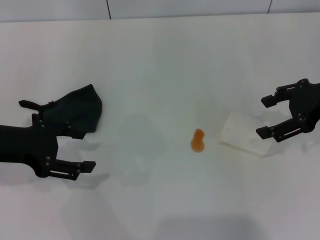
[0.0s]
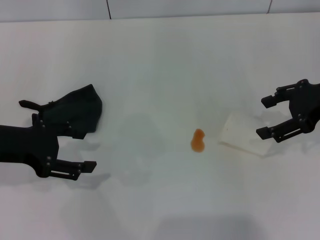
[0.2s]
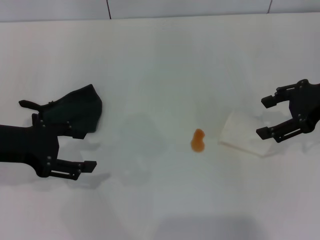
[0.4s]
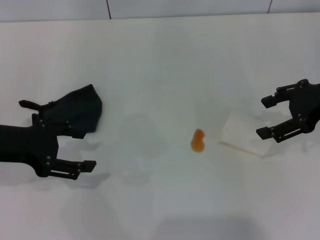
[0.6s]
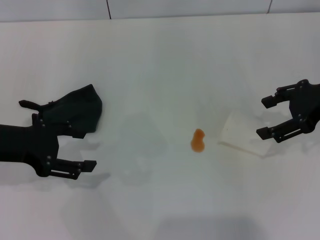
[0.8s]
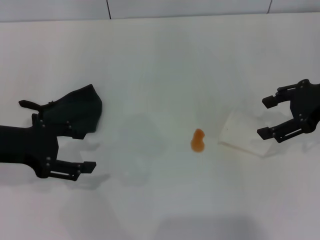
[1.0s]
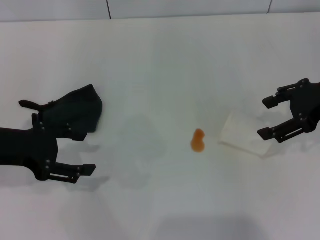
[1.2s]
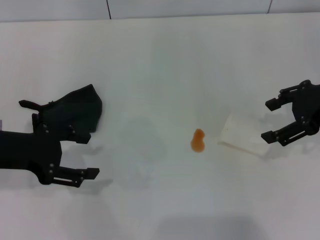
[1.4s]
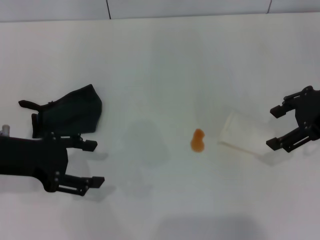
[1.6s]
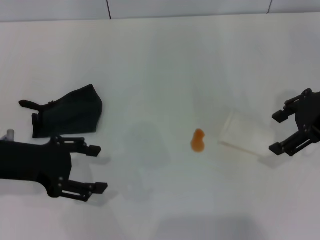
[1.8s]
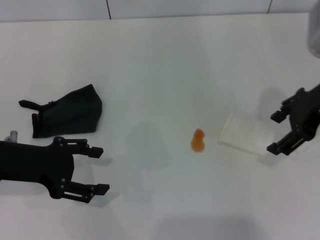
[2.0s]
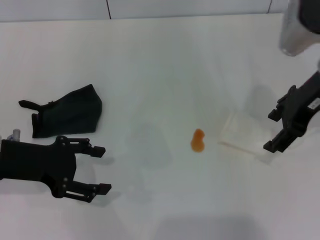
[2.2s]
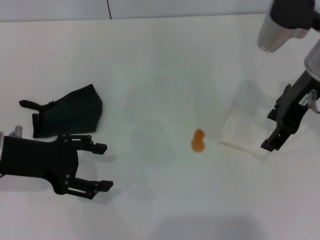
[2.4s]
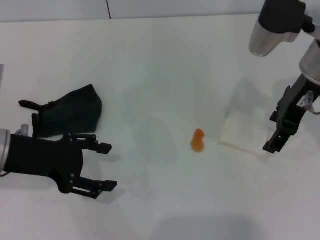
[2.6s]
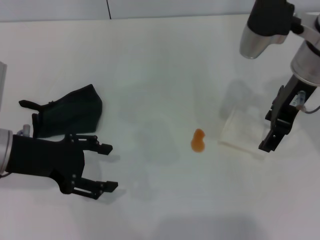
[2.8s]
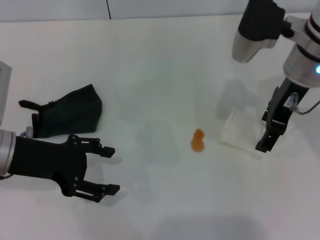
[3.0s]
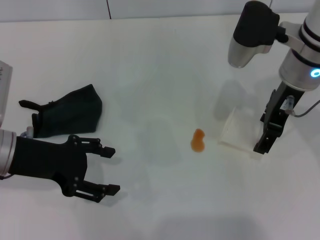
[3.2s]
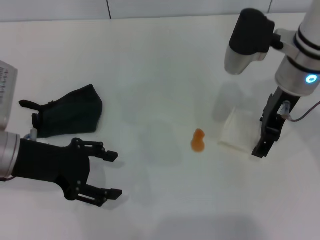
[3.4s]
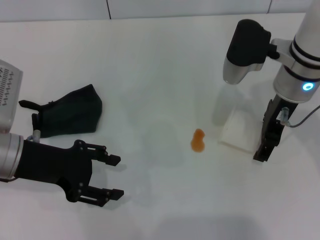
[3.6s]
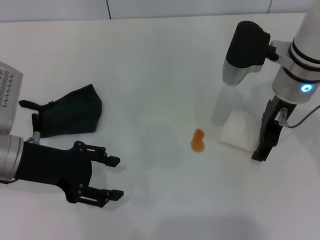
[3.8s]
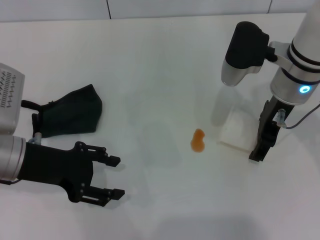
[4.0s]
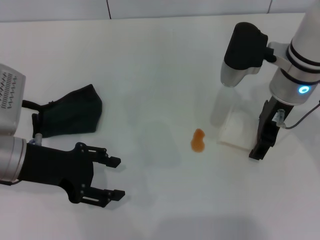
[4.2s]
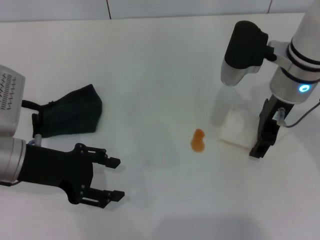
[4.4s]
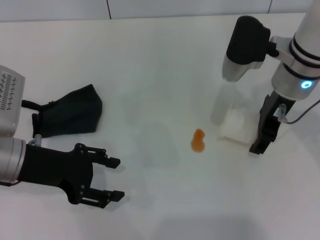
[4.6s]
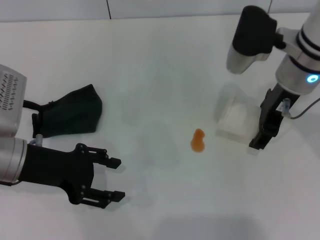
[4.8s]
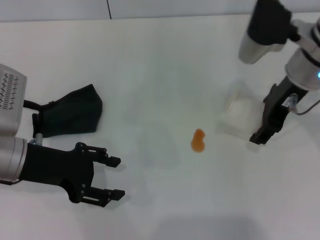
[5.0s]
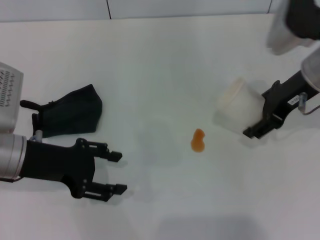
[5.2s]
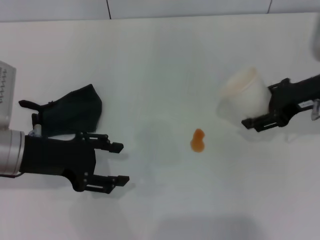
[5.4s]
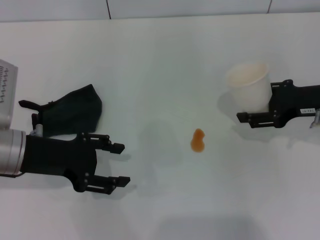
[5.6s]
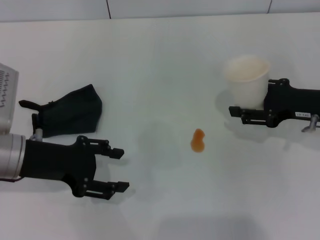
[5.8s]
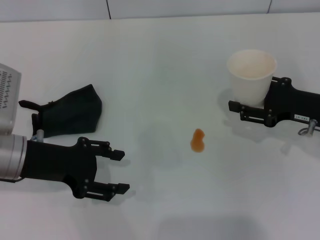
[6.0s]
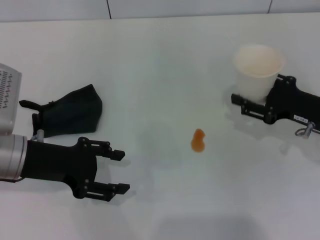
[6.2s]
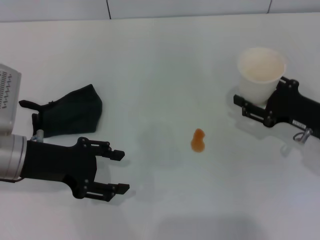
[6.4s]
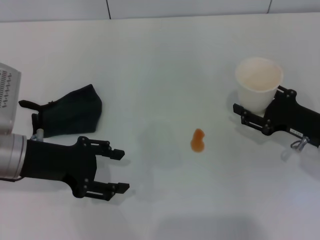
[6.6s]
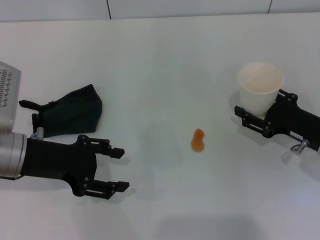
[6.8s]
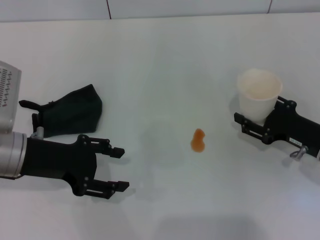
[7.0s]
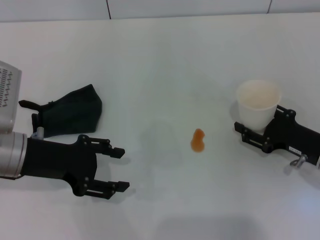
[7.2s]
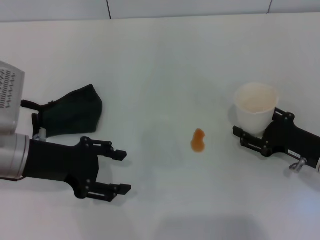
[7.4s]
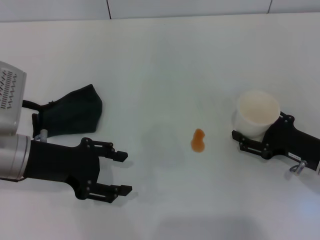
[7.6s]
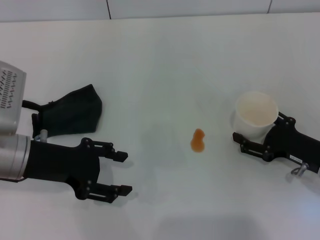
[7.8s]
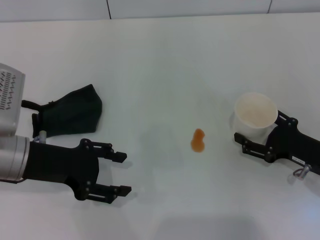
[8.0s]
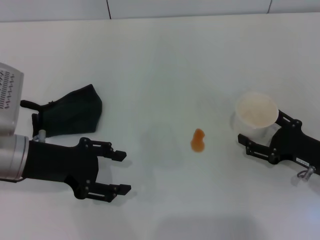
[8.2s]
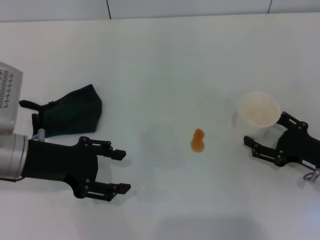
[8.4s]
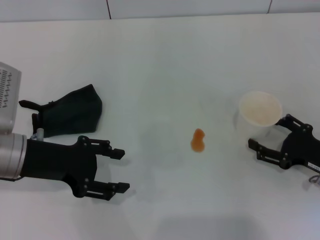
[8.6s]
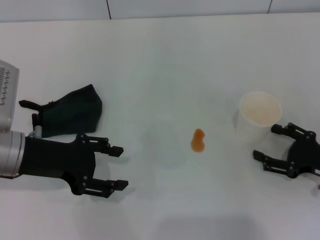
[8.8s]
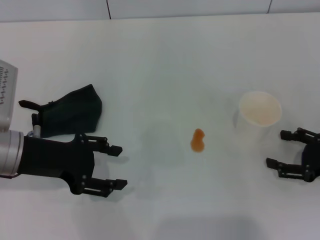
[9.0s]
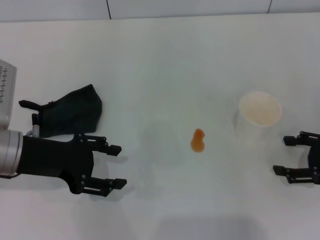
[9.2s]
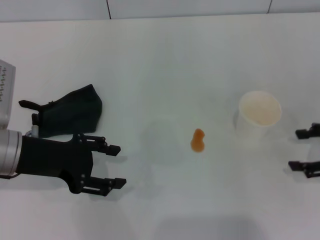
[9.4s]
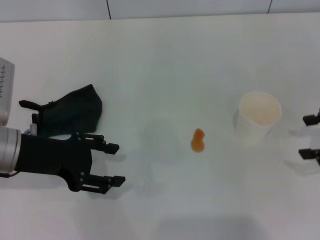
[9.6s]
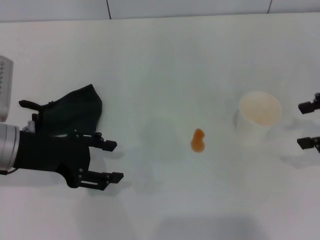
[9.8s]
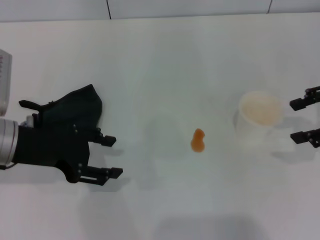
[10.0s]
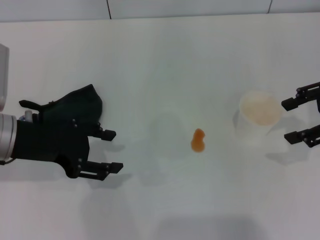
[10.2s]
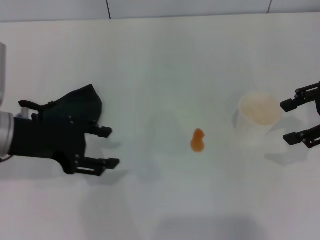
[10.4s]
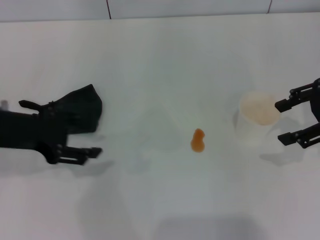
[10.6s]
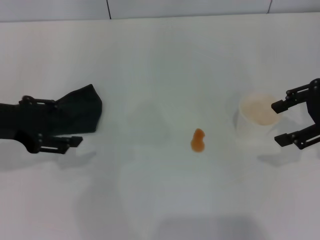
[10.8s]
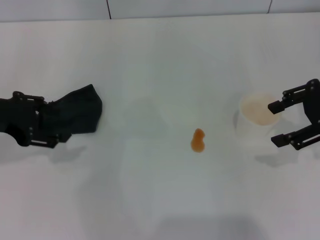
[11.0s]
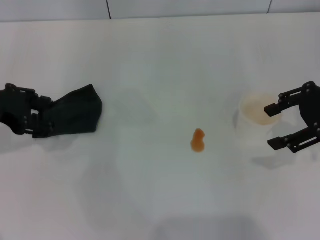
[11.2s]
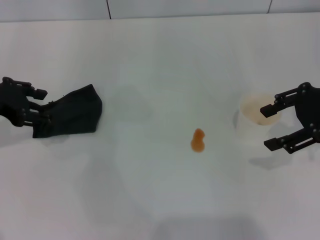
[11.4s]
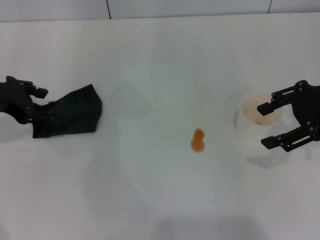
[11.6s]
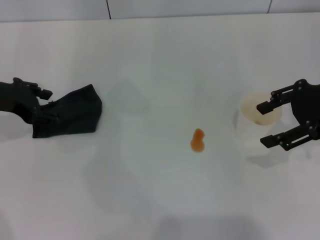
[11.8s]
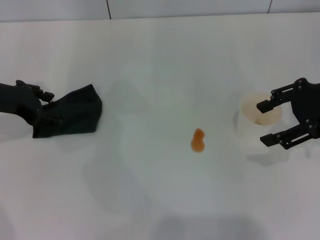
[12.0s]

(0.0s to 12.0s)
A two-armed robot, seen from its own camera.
Step, 0.0s - 4.4s: Grasp the paper cup with the right gripper.
Step, 4.6s - 8.8s: Stand the paper cup upright with the right gripper.
0.0s - 1.6s: There are only small adjustments of the grippers.
1.6s - 3.0s: The right gripper shifts approximately 10 cm to the left.
3.0s - 4.4s: The grippers make only small movements.
4.4s - 6.0s: The right gripper heads to the right, downward and backward, covering some 15 cm.
6.0s - 7.6s: The right gripper moves downward, about 5 cm, and opens its fingers.
7.6s - 9.0s: The right gripper goes some 5 cm to the right.
9.0s - 10.4s: The right gripper heads upward and forward, covering roughly 20 cm, and closes up.
10.4s - 12.0s: The left gripper goes about 10 cm forward and to the left.

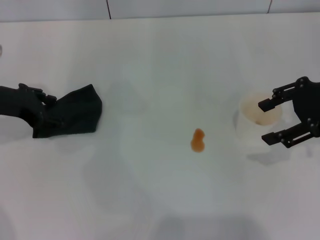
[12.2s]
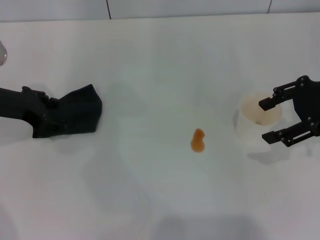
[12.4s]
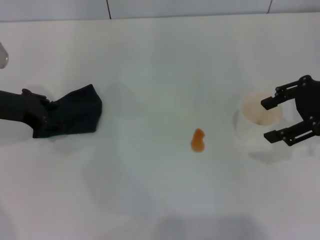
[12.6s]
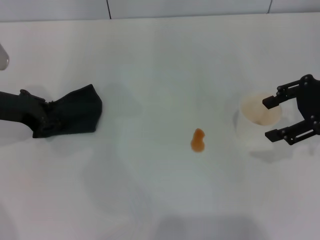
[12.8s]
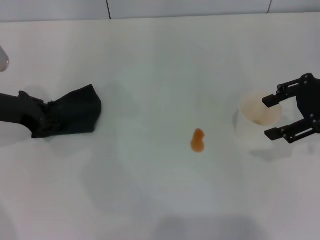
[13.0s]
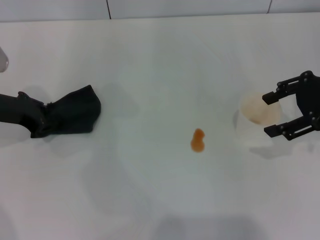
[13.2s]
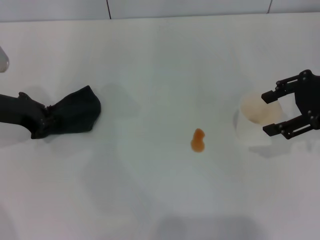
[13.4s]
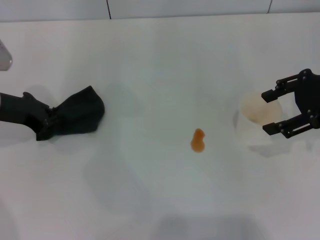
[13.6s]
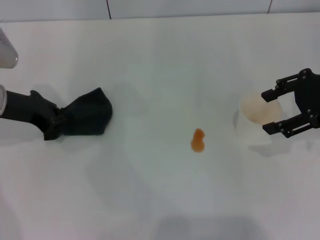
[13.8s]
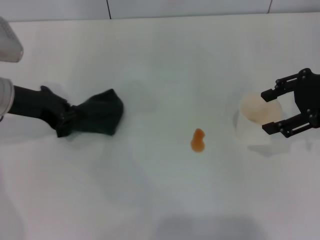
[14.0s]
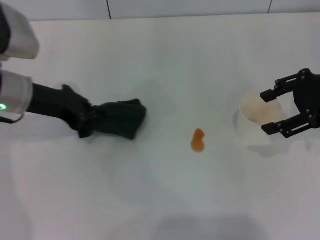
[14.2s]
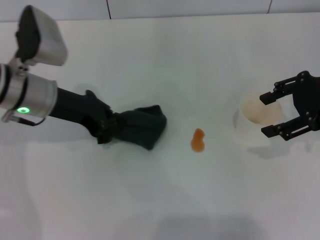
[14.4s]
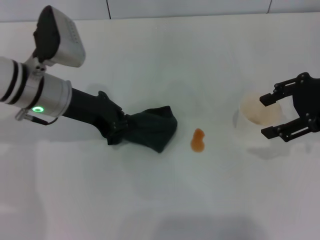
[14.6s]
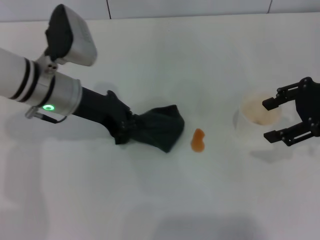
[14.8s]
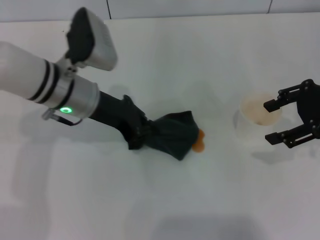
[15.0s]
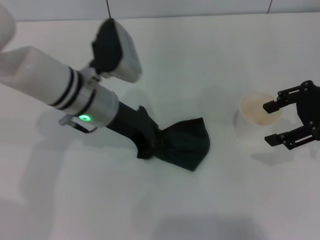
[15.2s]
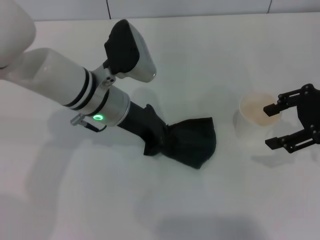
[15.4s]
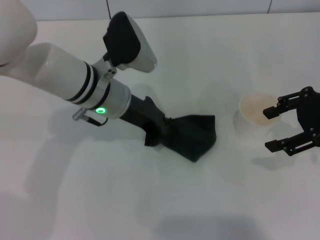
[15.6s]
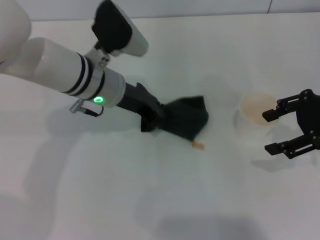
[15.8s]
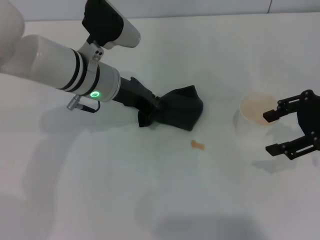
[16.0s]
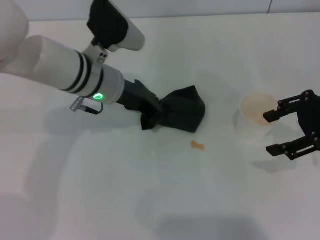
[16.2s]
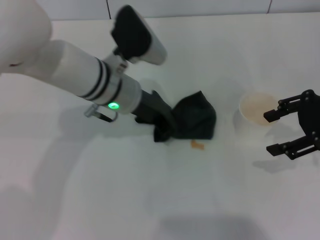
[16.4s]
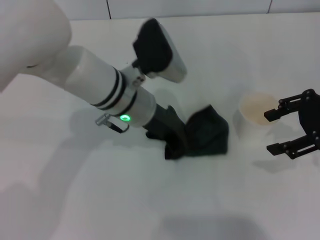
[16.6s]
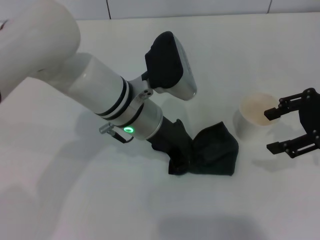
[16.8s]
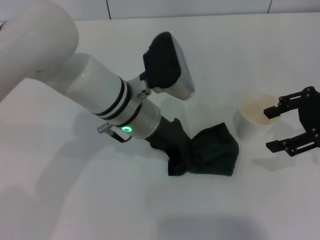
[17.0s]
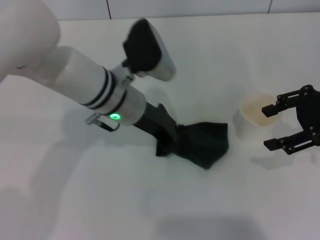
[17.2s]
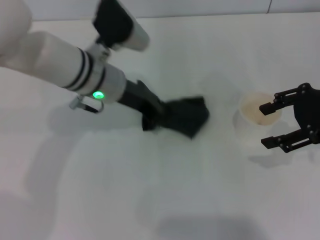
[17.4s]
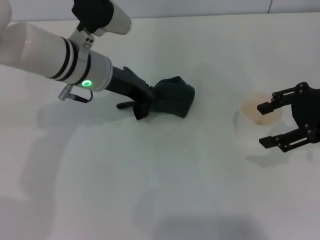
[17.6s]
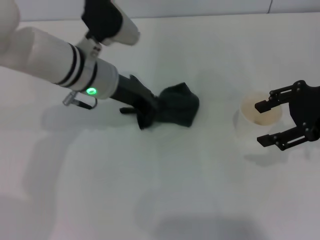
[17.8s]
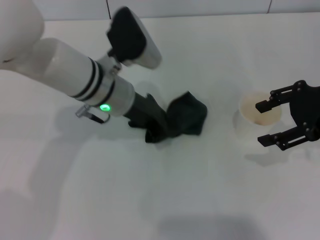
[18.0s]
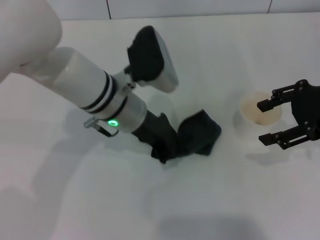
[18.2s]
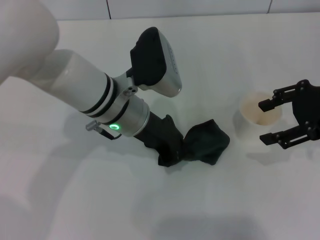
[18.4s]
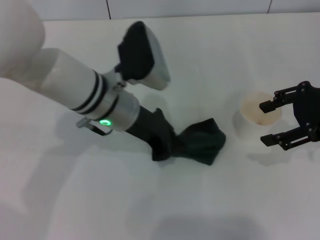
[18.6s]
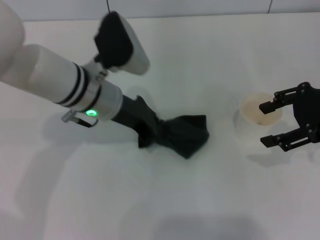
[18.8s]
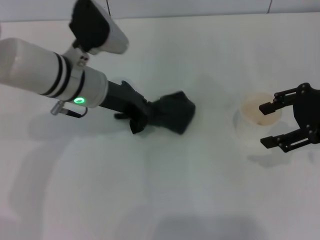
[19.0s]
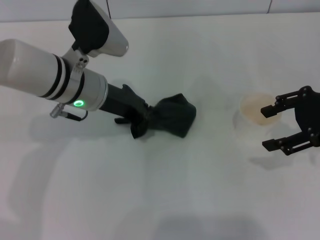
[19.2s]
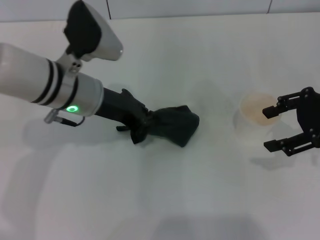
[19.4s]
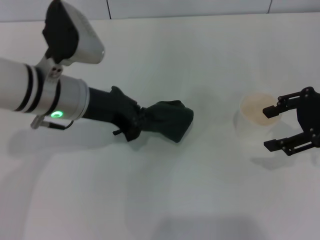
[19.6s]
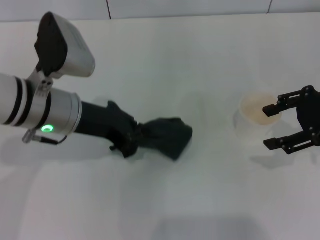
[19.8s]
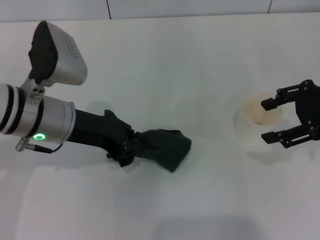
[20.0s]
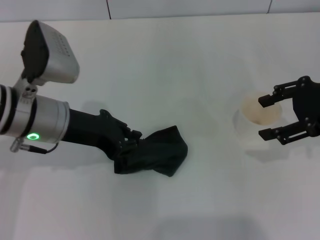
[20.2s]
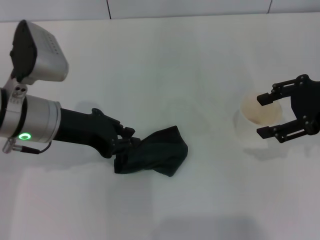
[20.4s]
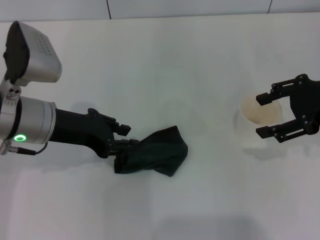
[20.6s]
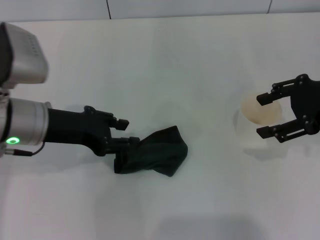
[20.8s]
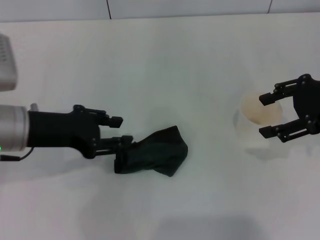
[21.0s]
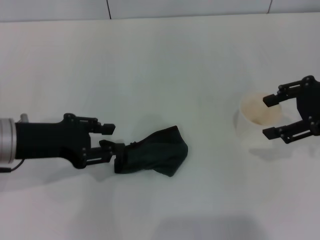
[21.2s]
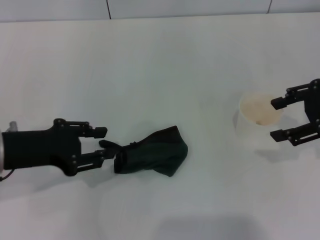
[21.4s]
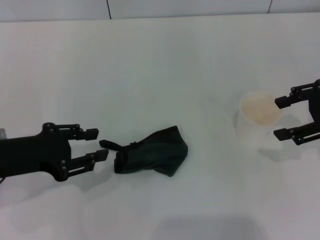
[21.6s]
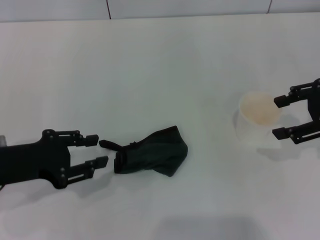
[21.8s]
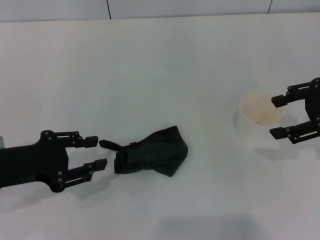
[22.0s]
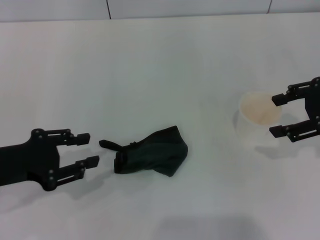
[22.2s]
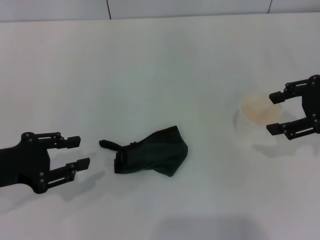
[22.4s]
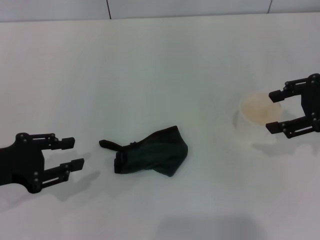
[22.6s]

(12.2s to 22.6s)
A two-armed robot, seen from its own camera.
Step, 13.6s - 19.8s: Wipe the stains off the table with the left gripper.
Step, 20.2s - 21.2s: Place the rag on the table with the left gripper.
12.2s - 13.6s: The left gripper closes its fingers.
13.6s - 15.2s: The left gripper goes some 15 cm to the right.
15.2s - 16.6s: The left gripper shifts approximately 5 cm to the right.
18.2s - 19.6s: The left gripper shifts about 10 cm to the left.
19.6s - 21.2s: The left gripper travels to the left and backward by roughly 10 cm, and opens up.
21.2s - 22.6s: The left gripper travels to the left by some 5 cm.
